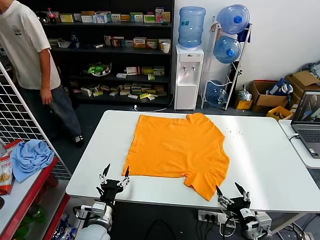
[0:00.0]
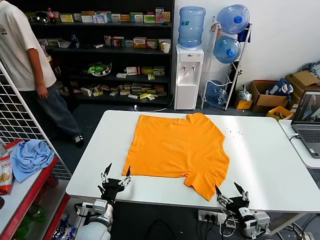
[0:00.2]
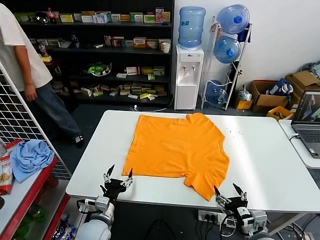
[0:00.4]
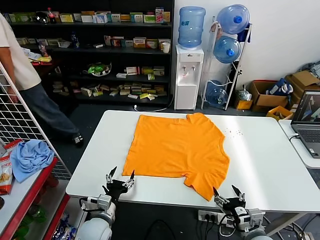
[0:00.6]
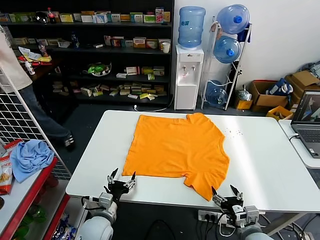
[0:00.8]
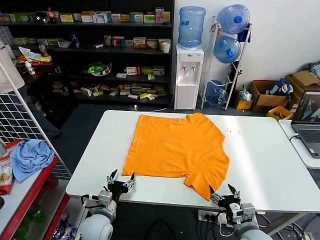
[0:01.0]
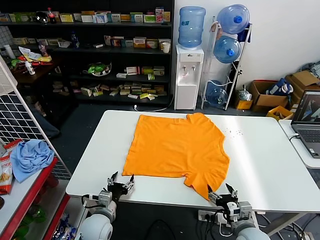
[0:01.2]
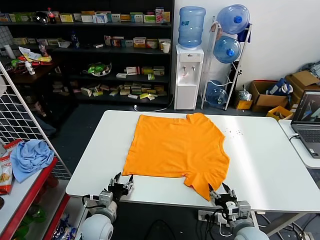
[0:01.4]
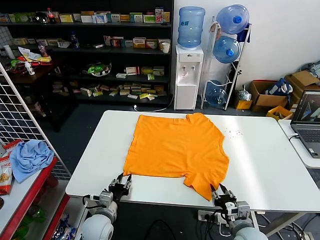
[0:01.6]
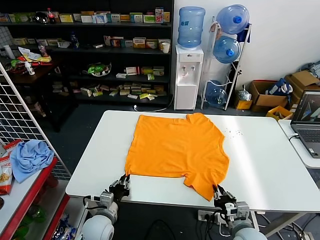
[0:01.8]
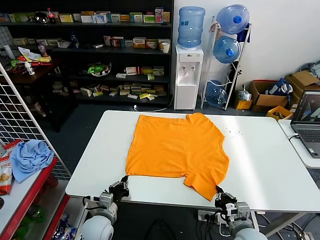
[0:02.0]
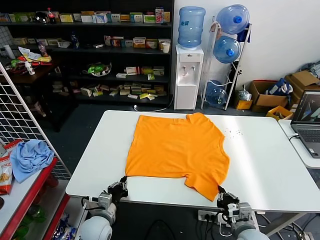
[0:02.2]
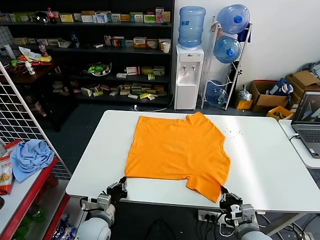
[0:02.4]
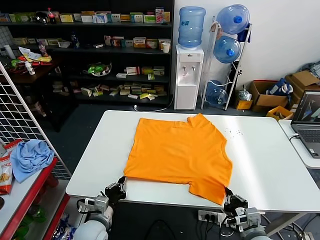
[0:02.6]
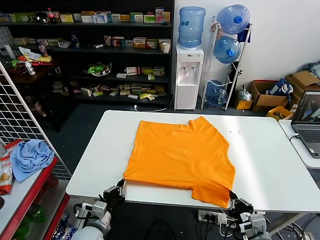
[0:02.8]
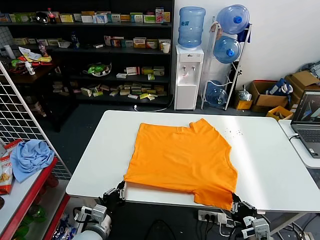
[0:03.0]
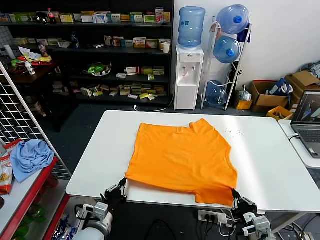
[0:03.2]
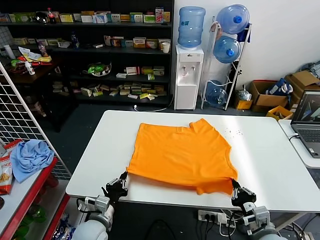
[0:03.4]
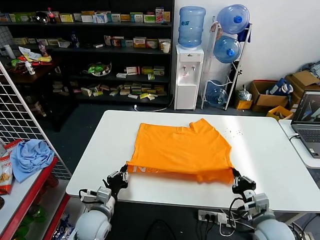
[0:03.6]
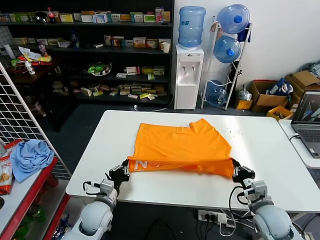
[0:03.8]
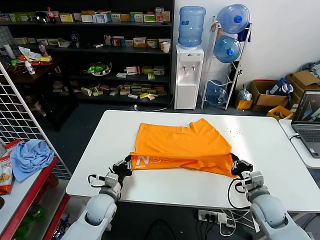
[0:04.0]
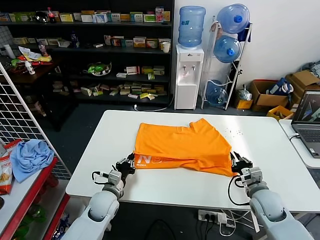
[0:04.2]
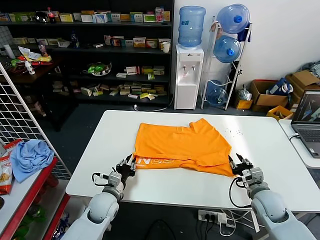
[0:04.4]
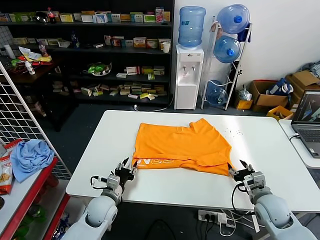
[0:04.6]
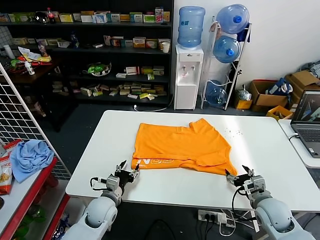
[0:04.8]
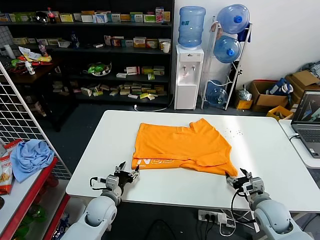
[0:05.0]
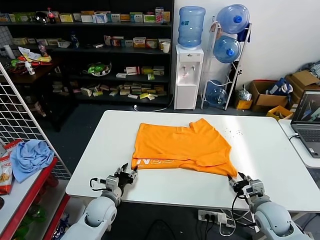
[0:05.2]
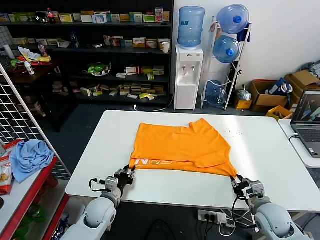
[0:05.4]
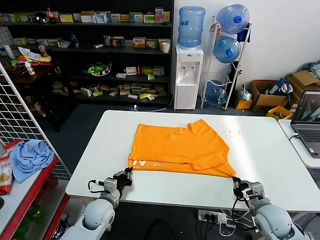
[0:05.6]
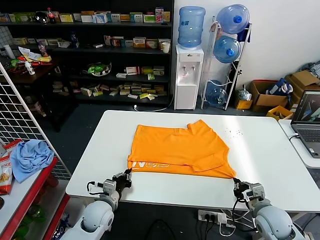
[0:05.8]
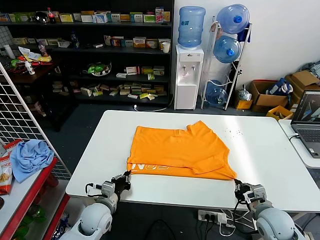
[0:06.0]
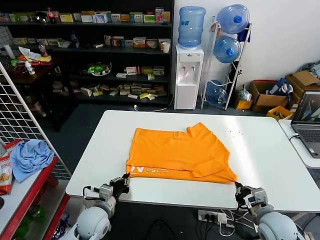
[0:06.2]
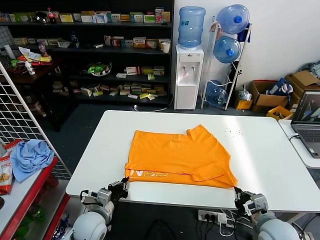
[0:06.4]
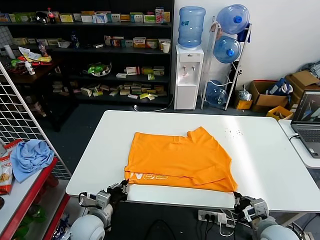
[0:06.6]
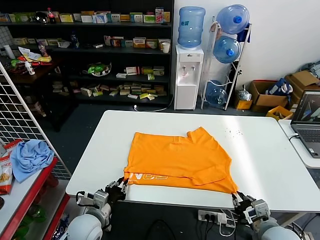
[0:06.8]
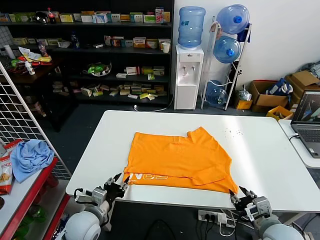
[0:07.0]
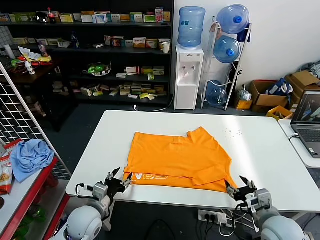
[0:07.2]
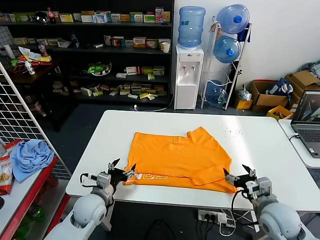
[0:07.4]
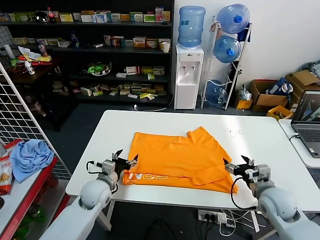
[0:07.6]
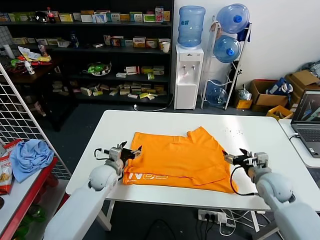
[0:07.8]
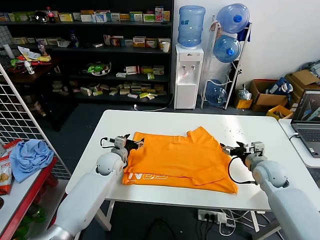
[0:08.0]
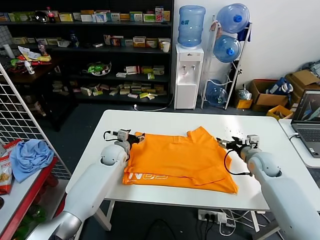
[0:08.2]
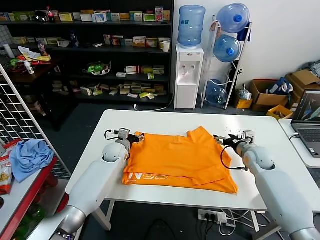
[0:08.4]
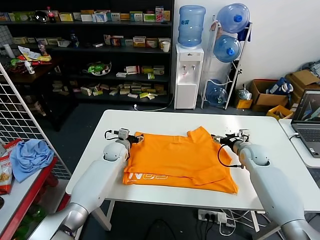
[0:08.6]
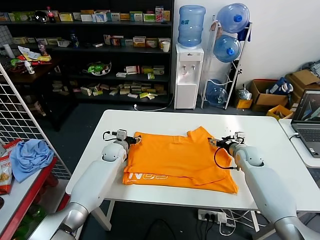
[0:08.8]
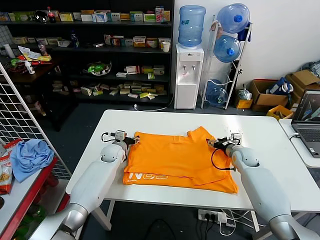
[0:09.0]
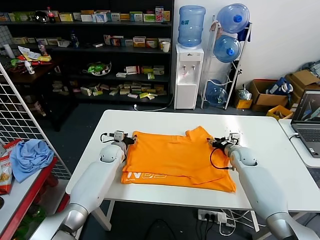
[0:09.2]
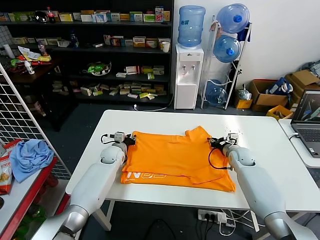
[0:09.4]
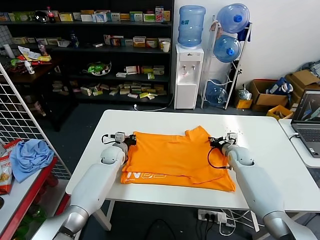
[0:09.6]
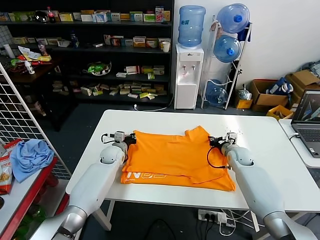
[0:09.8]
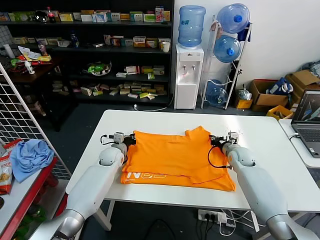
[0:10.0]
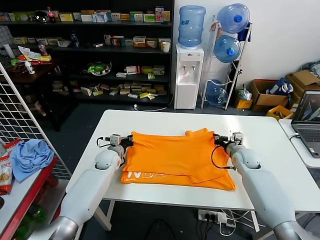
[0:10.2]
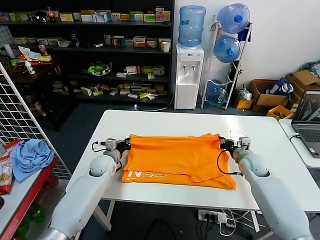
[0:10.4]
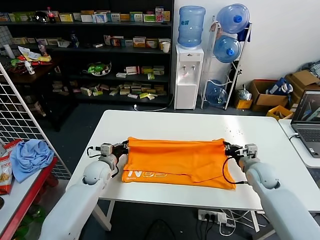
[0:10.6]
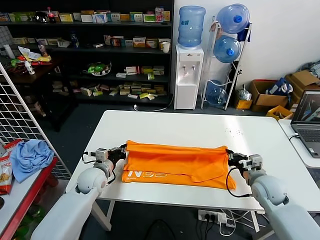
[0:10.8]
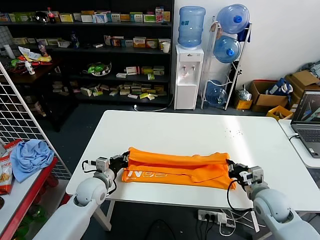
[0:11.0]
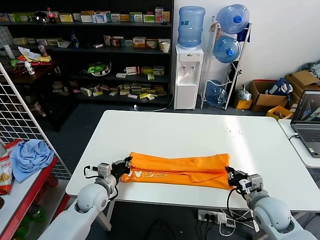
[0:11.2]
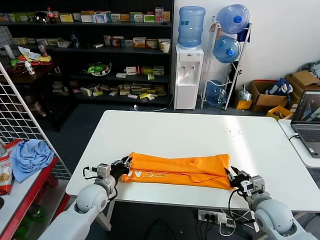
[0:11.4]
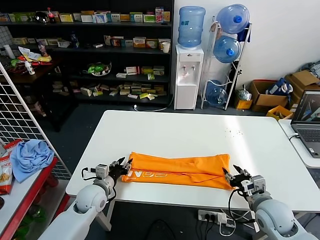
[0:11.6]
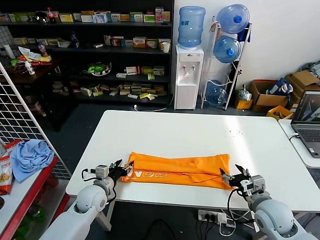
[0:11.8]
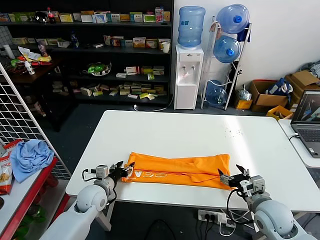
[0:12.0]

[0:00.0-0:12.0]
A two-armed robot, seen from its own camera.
Task of the whole recording: fold and organize the clothes.
Step, 0:00.0 to 0:02.4: use both grippers simultaneously to clamp the lower edge of the clothing fabric.
Step, 0:02.6 to 0:04.6: use both grippers to drag the lower edge of the fabric forward and fold it over the upper edge.
Step, 0:04.8 to 0:07.0: Drag the clothes downward with both gripper.
Step, 0:07.4 to 0:10.0: use both grippers simultaneously to clamp the upper edge of the clothing fabric.
Step, 0:10.2 to 0:11.6: use both grippers to drag the upper edge of the fabric backward and fold it over the lower edge.
0:01.6 to 0:03.0: Both grippers move backward, approximately 5 cm. The left gripper closes. The right gripper closes its fingers.
0:03.0 to 0:04.4: The two grippers go about 15 cm forward. The right gripper opens.
0:04.4 to 0:06.0: The right gripper goes approximately 5 cm backward, and closes its fingers. The left gripper opens and closes again.
0:06.0 to 0:07.6: Both grippers move forward, roughly 5 cm. The left gripper opens its fingers, while the right gripper opens.
0:07.6 to 0:09.0: The grippers both shift forward by some 20 cm.
0:09.0 to 0:10.4: Both grippers travel together backward, roughly 5 cm. The left gripper closes its fingers; the right gripper closes up.
0:10.4 to 0:12.0: Both grippers travel together backward, roughly 15 cm. The right gripper opens its fingers. The left gripper opens up.

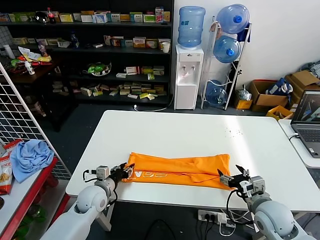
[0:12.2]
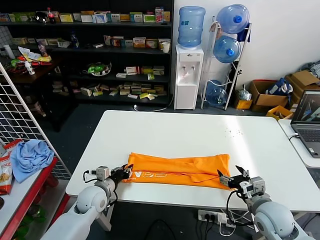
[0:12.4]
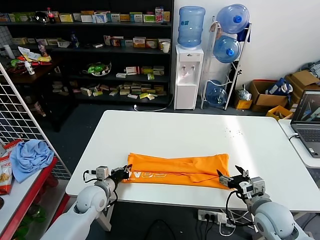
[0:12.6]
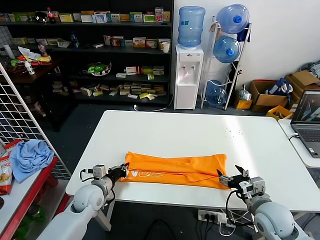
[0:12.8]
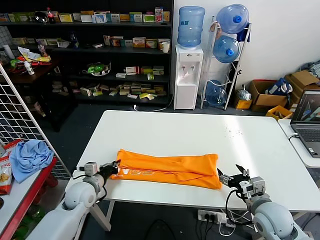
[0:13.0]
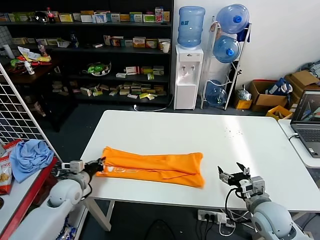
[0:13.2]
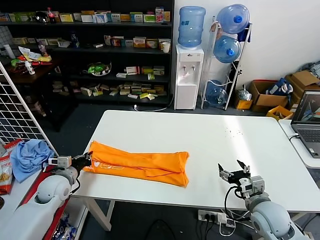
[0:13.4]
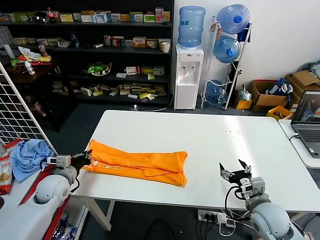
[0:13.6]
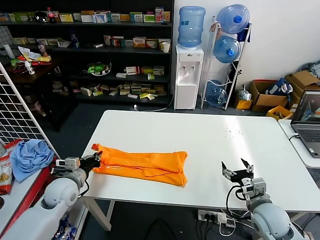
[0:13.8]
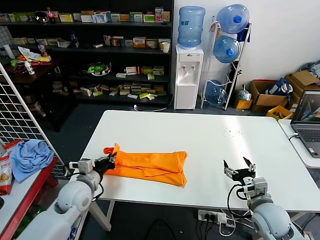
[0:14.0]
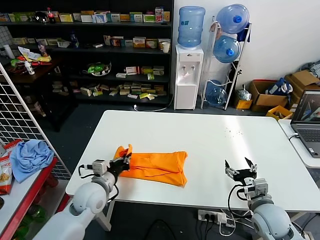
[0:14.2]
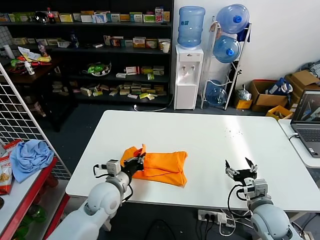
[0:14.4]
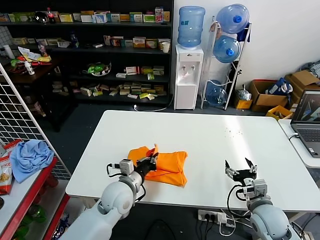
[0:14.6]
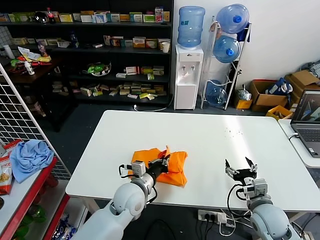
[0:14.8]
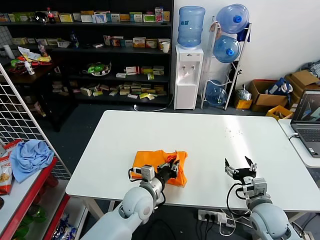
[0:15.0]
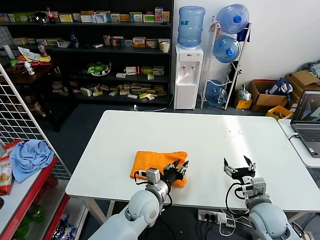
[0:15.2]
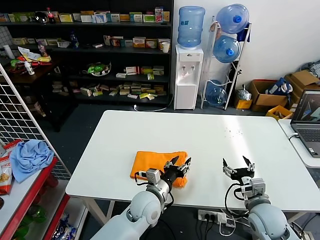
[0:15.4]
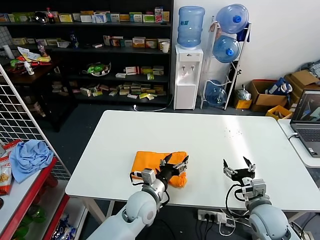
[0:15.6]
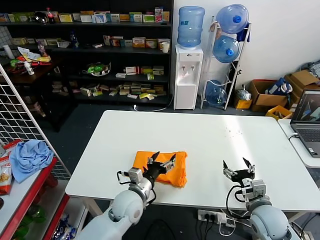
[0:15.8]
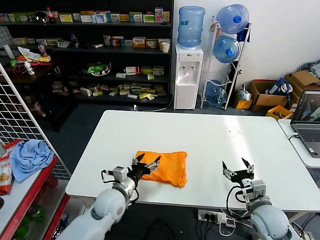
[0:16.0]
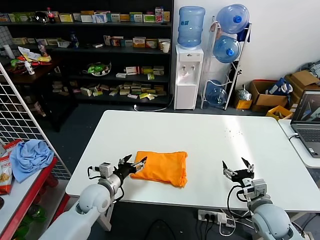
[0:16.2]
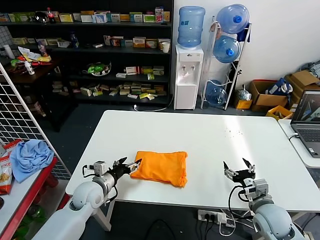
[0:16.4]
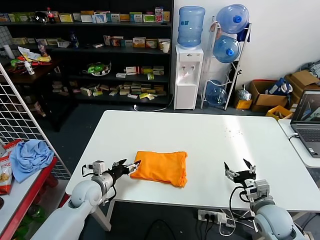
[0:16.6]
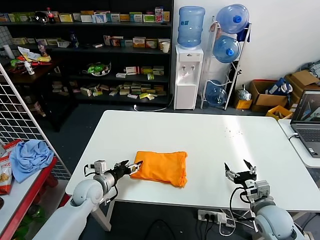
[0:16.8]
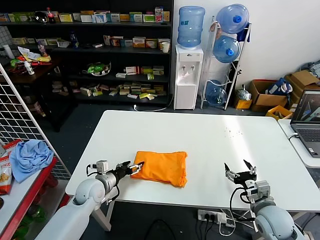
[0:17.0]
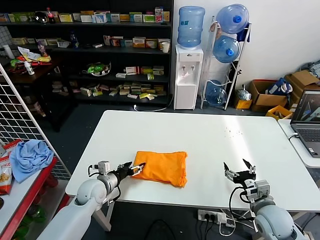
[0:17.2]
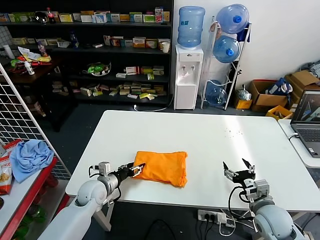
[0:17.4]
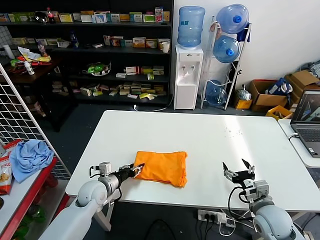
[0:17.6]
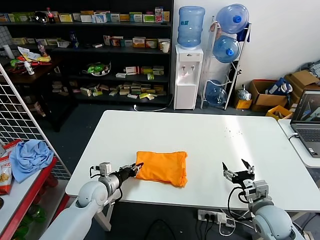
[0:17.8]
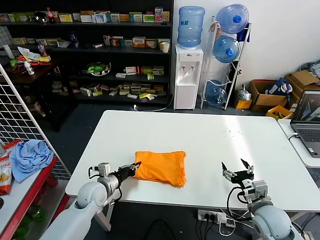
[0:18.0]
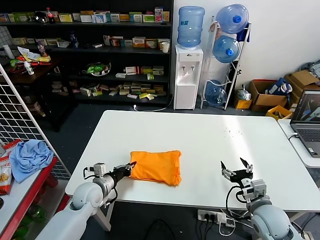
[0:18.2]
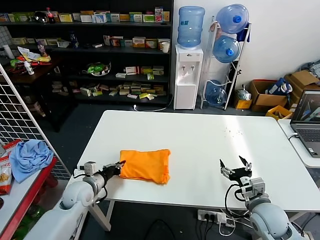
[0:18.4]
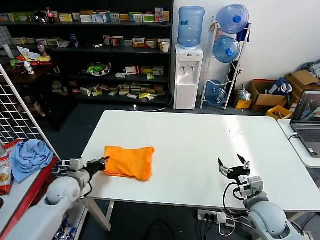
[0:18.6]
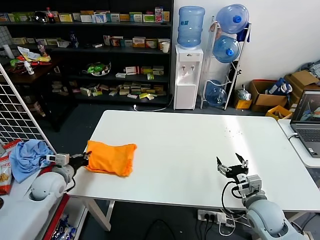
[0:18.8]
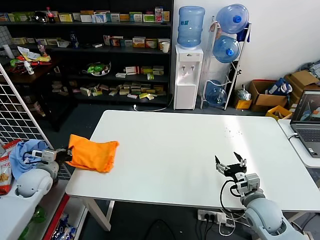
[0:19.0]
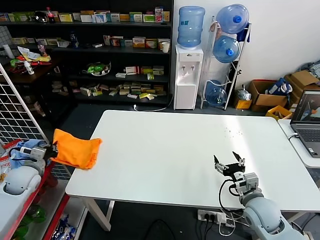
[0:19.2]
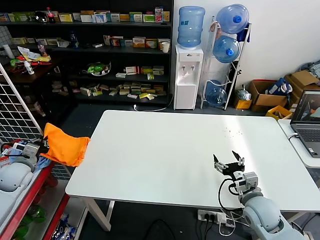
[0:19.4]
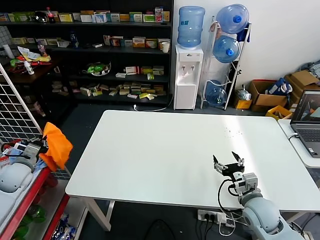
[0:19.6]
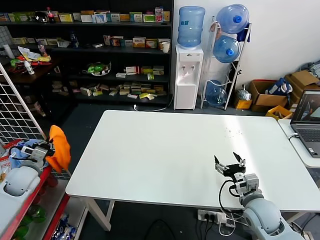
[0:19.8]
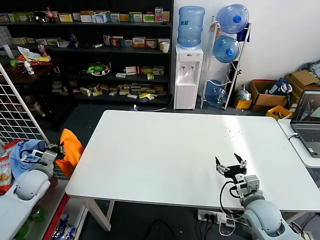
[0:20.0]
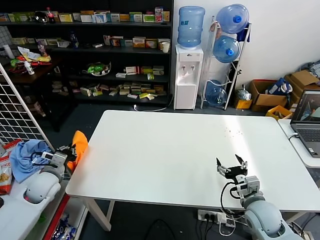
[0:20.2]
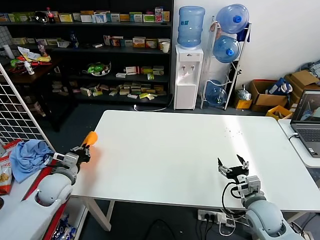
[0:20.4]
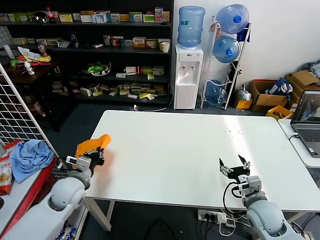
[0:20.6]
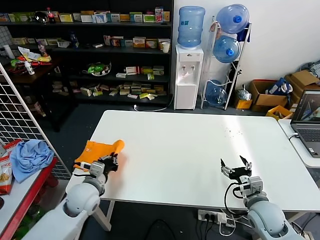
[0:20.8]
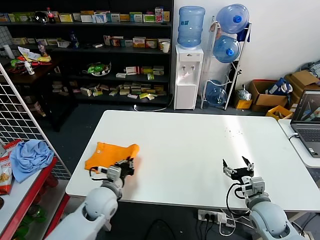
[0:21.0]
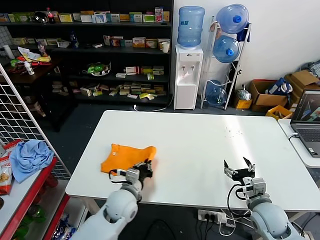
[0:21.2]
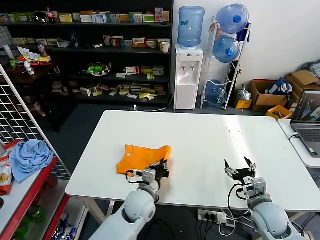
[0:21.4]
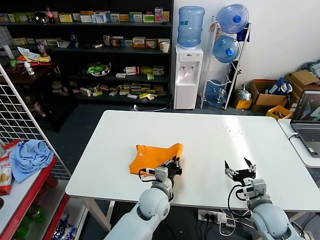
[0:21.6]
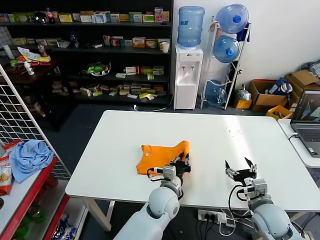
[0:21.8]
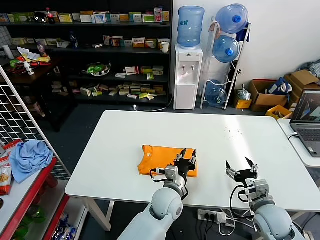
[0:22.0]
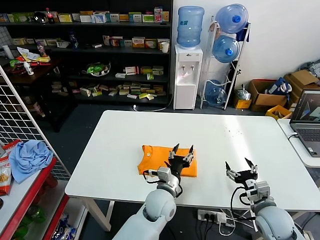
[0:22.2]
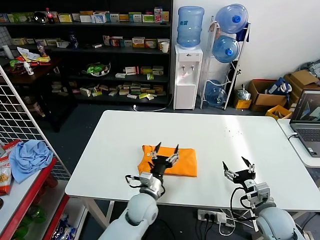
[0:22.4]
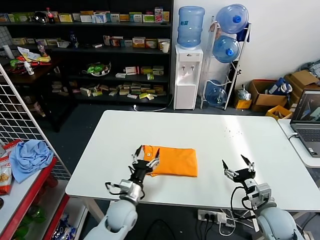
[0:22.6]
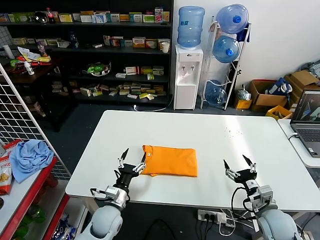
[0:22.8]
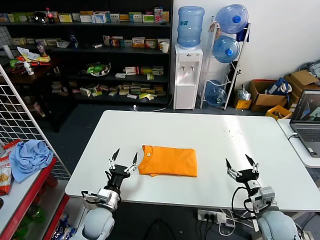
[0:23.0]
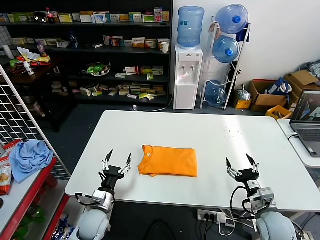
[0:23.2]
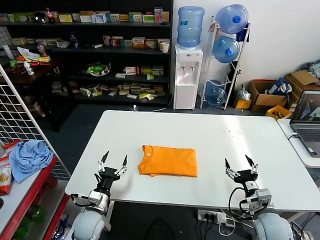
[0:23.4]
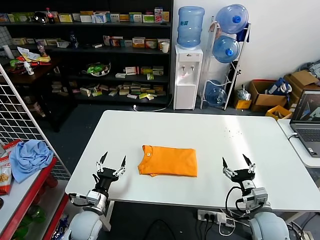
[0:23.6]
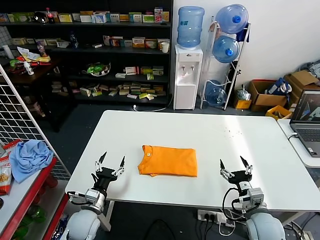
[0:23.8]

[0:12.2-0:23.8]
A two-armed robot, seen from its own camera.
Task of the whole recording: fold and organize the clothes.
Step, 0:12.8 to 0:15.4: use the left gripper to drag the left edge of the fabric to the left and folds it over the right edge.
Step, 0:15.8 to 0:22.0: Flip the folded clothes over with left gripper.
0:12.2 to 0:13.6: The left gripper goes about 15 cm to the left and upward, and closes.
0:13.6 to 0:15.0: The left gripper moves to the right, approximately 30 cm.
0:15.0 to 0:16.6: The left gripper travels to the left by about 20 cm, and opens up.
0:16.6 to 0:18.0: The left gripper closes.
0:18.0 to 0:19.4: The left gripper travels to the left by roughly 25 cm.
0:19.4 to 0:21.0: The left gripper heads to the right, covering some 30 cm.
0:21.0 to 0:22.4: The left gripper moves to the right, about 15 cm, and opens up.
0:22.4 to 0:23.8: The left gripper travels to the left by some 20 cm.
